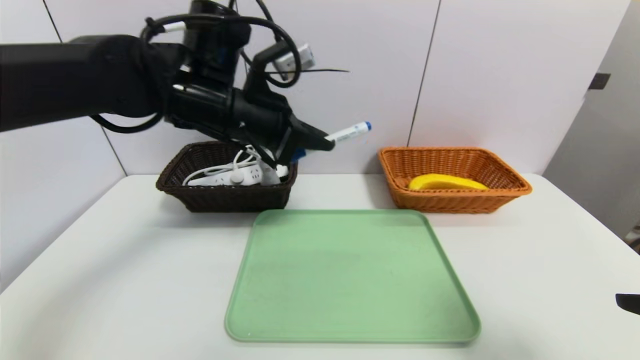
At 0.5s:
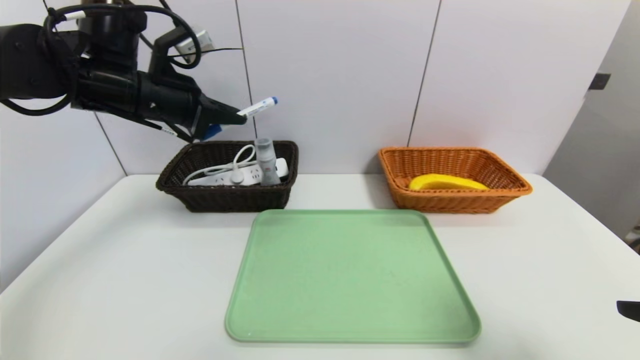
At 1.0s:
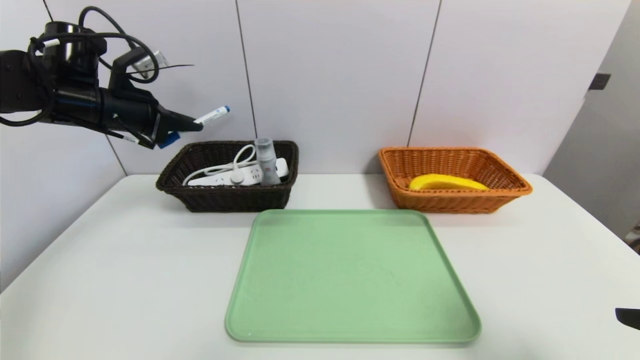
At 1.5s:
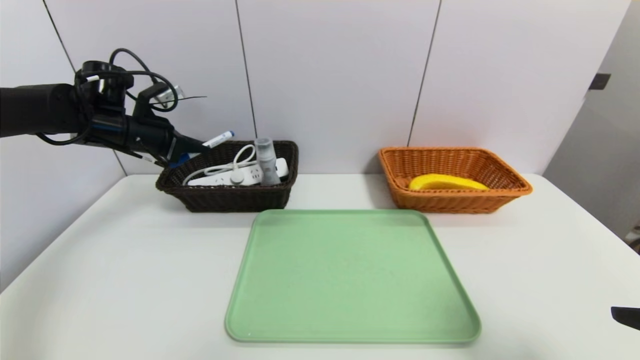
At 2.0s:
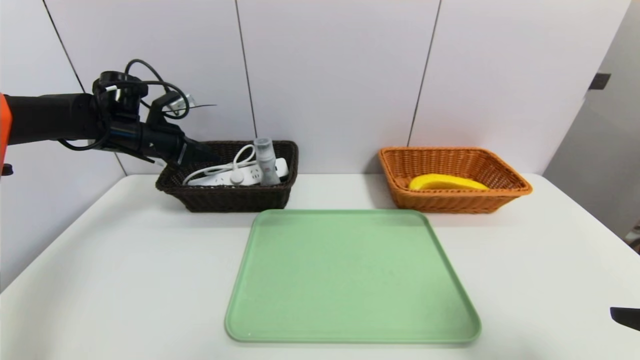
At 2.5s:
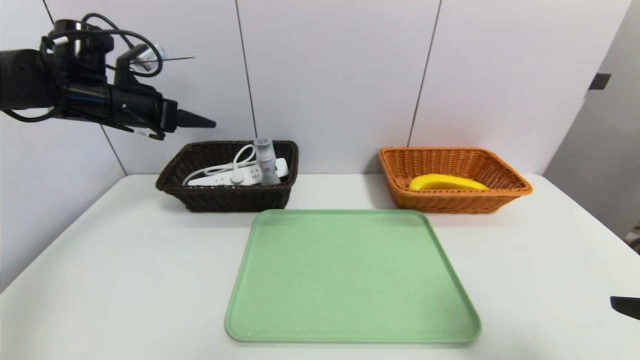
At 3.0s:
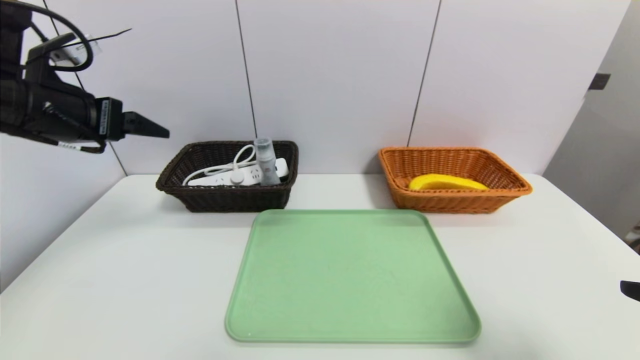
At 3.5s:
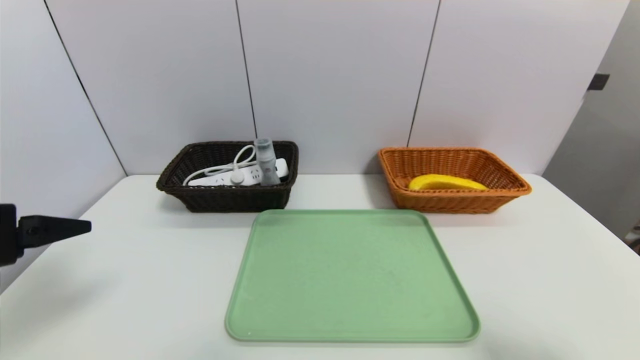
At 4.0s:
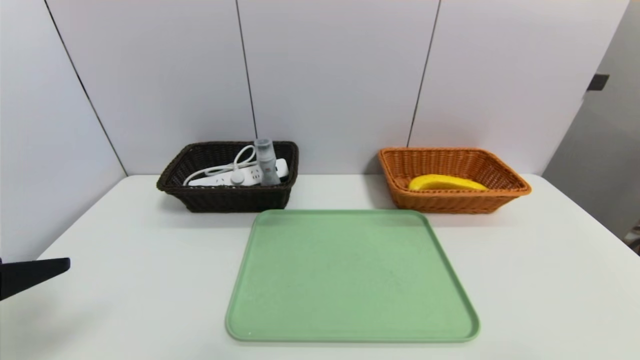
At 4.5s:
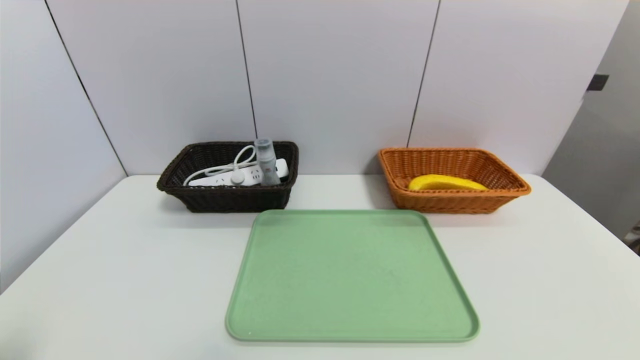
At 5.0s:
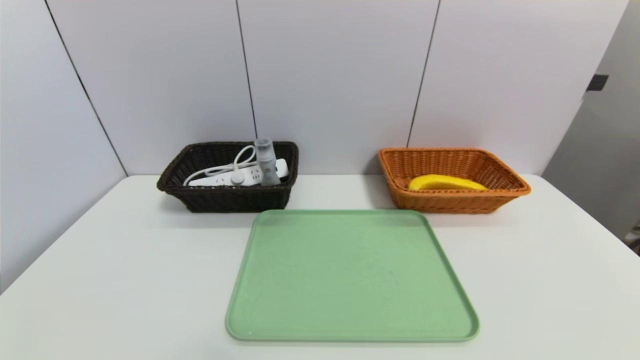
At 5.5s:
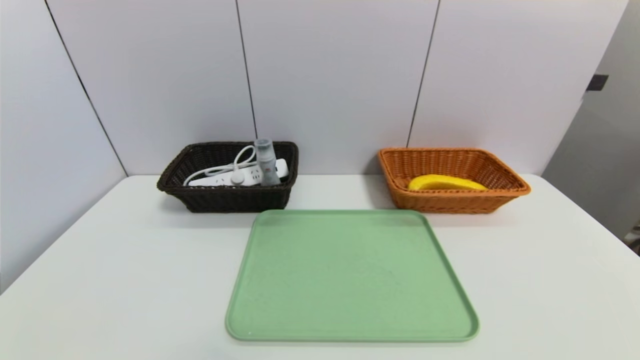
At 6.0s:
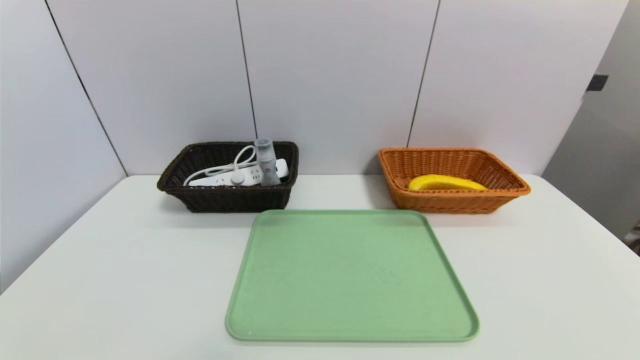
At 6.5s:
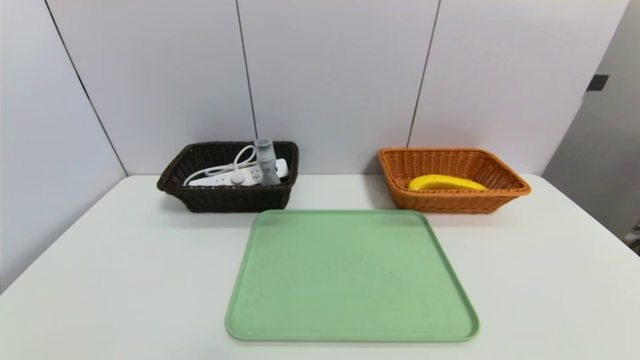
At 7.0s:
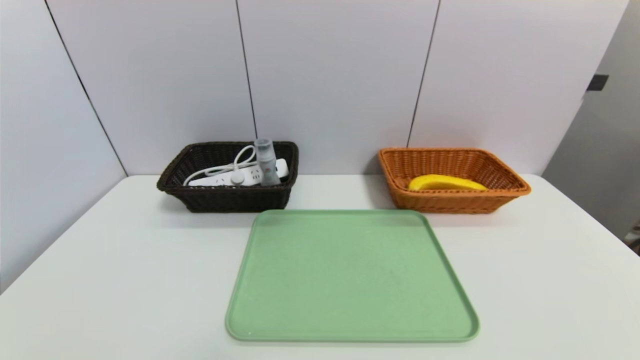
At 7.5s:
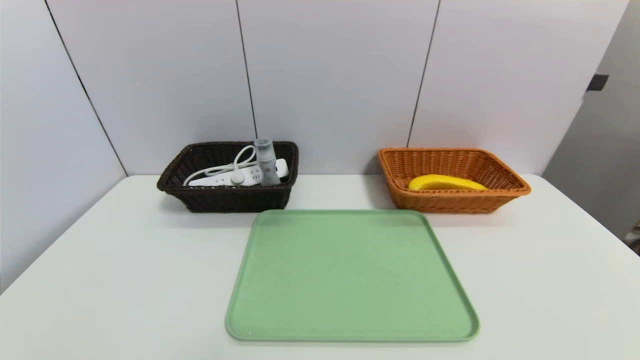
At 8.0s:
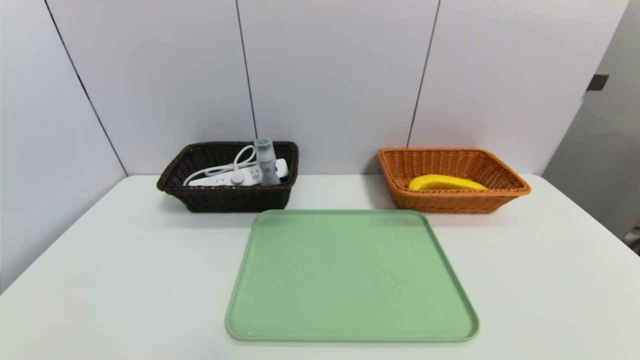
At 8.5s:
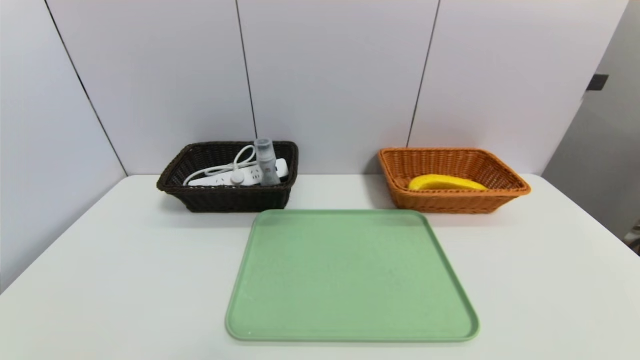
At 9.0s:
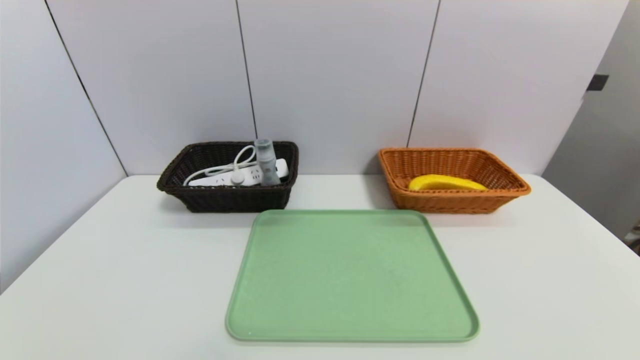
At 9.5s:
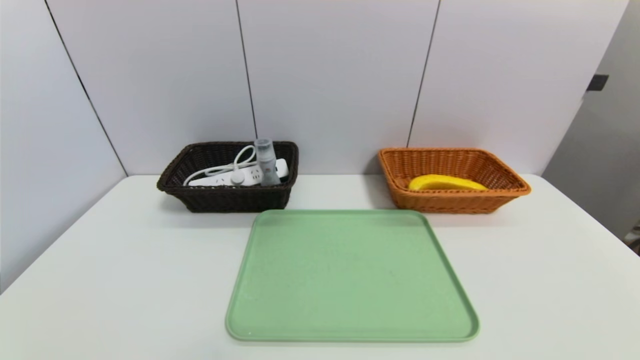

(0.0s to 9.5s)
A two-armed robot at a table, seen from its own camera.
Task of the whole recording: place the food in the right basket with the right gripper, and place the non food items in the left basket with the left gripper.
Step, 0.0s - 2.0s: Grasp the blue marker and put it in the left basket.
0.0s - 2.0s: The left gripper heads to the left, forward and downward, covering approximately 25 cm, and opens its fingers.
2.0s - 4.0s: The left gripper heads backward, covering about 35 cm, and opens; the right gripper goes about 10 cm backward.
4.0s - 5.5s: The left gripper shifts about 15 cm backward and downward.

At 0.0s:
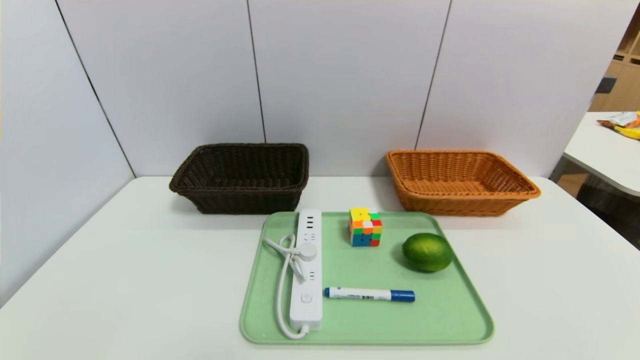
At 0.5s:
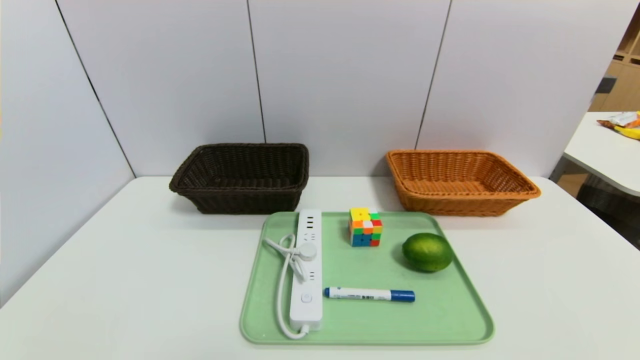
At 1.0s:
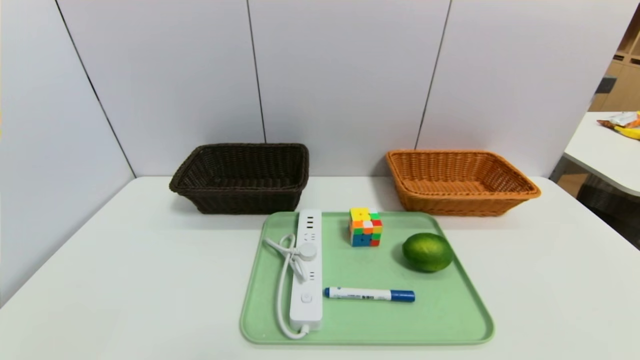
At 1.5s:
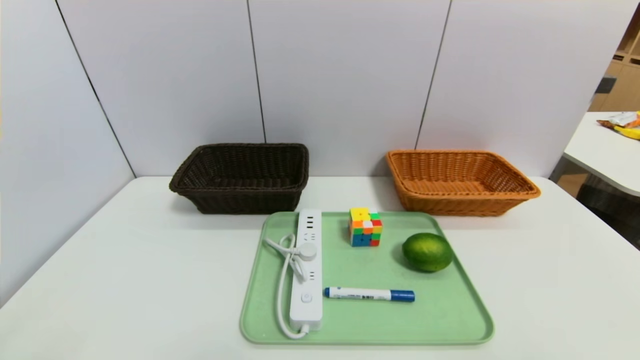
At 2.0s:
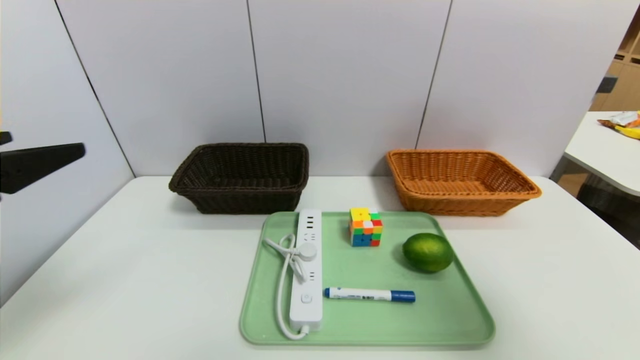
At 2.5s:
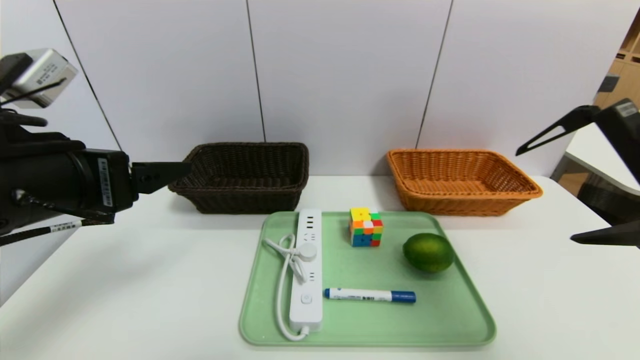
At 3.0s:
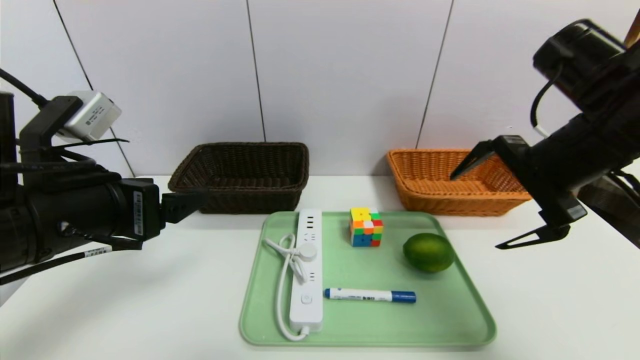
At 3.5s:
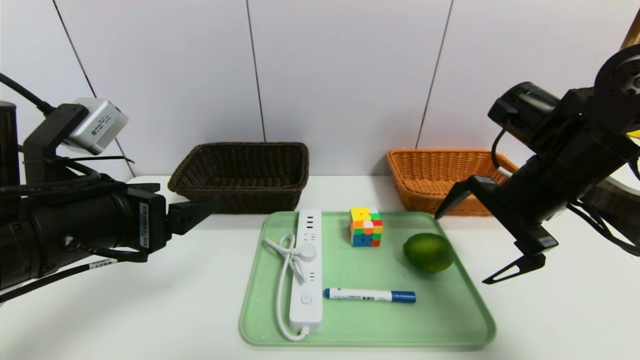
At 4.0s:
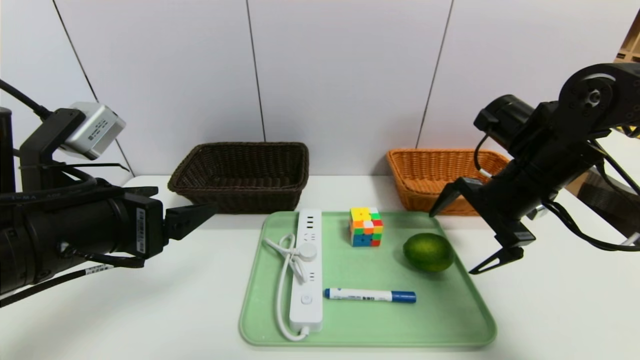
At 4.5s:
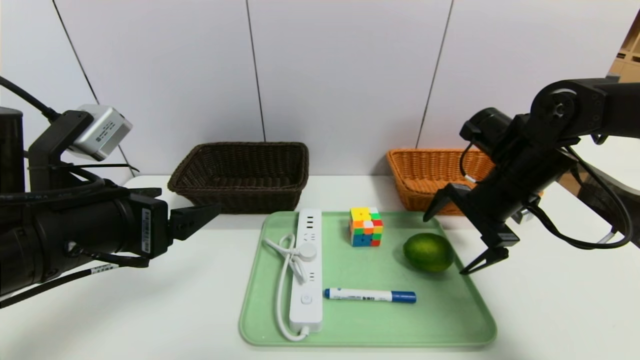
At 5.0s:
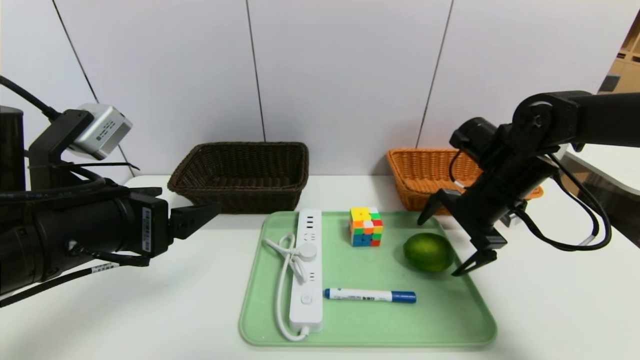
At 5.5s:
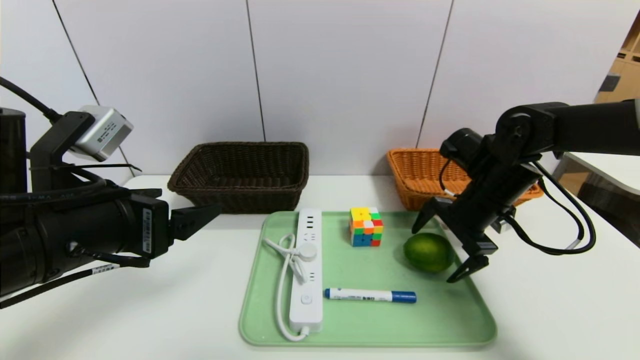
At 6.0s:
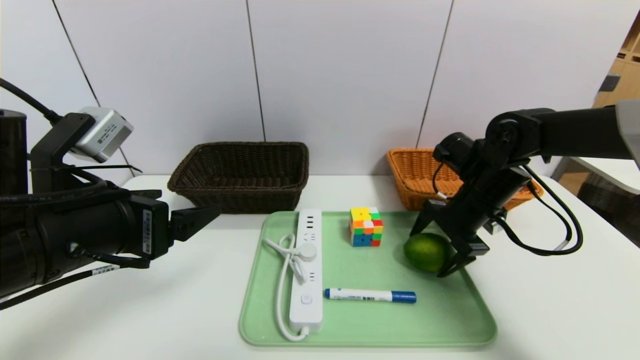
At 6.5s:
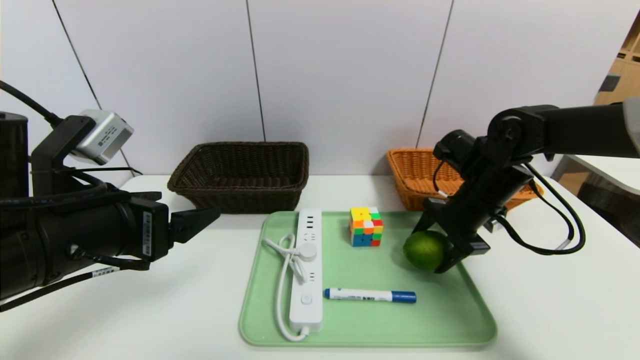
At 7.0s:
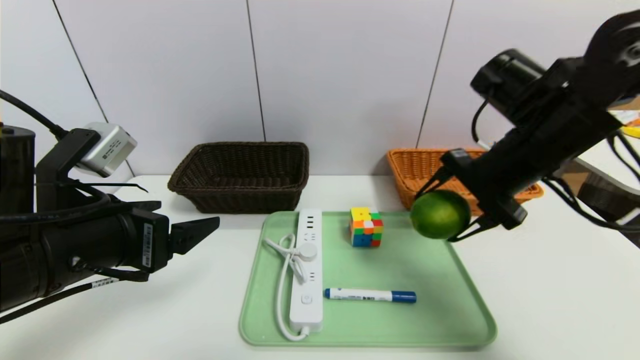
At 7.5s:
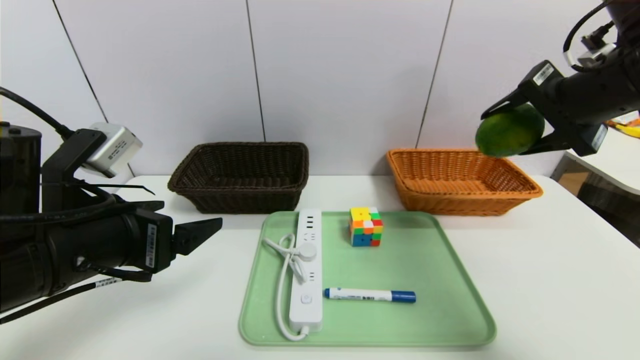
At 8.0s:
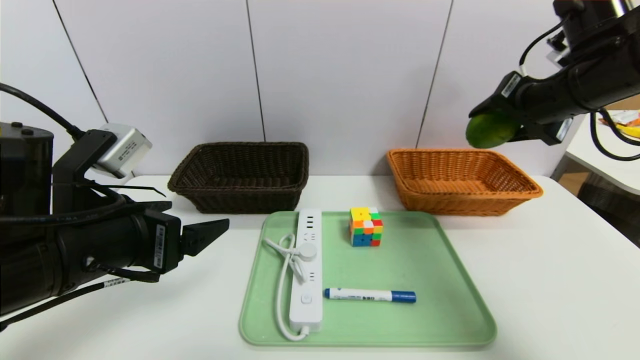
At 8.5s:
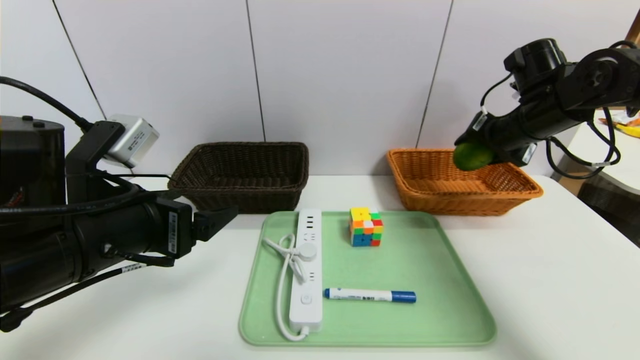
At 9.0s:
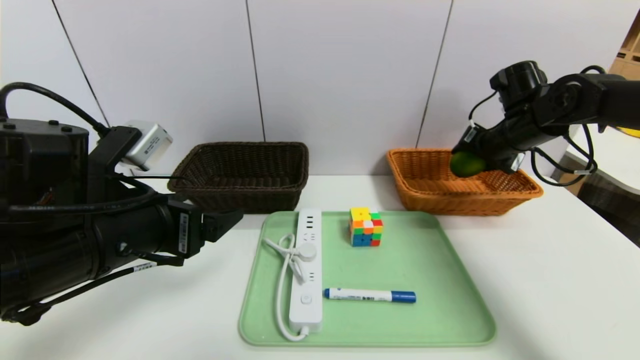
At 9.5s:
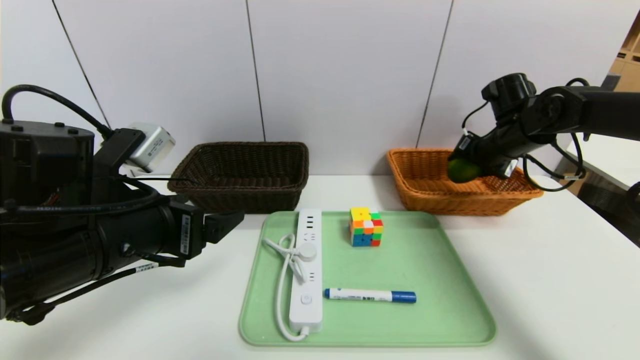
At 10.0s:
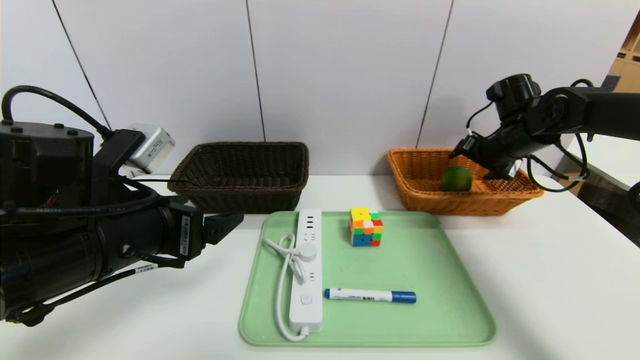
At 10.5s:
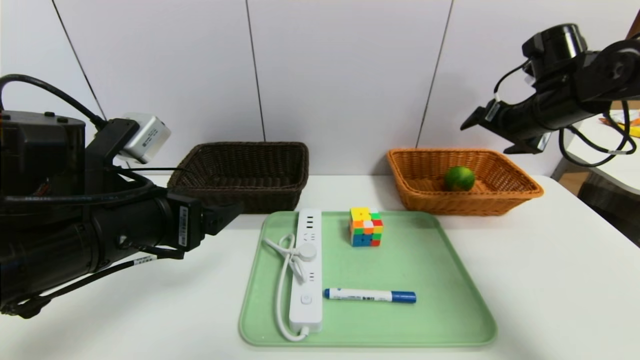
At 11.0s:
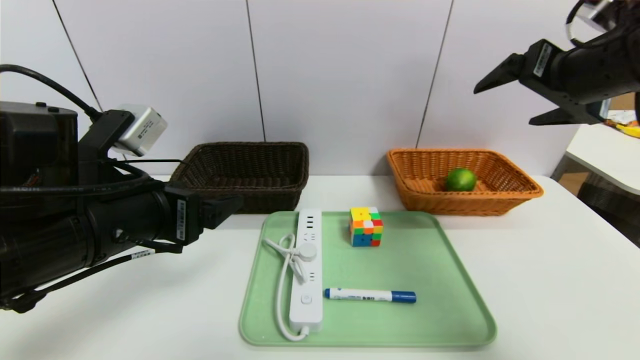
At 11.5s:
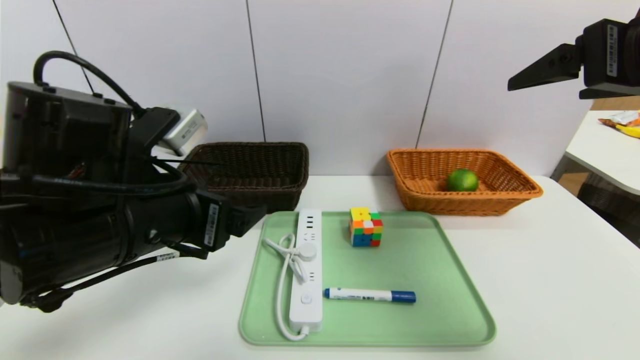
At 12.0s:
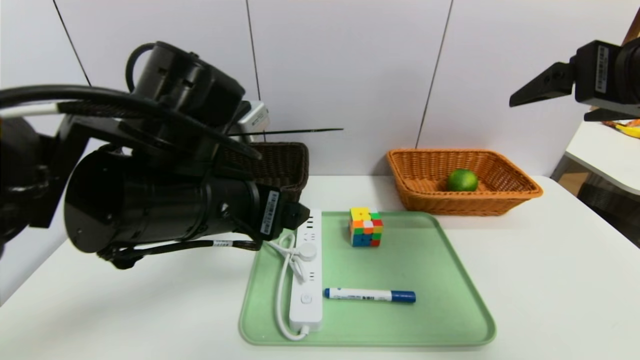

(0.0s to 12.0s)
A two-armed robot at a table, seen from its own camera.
Task of the whole recording: place the food in the right basket with the right gripper, and place the non food items in the left basket with the left gripper.
Step, 0.0s - 10.0s: Grasp the green lemon and put it in the right basket.
0.0s - 2.0s: The left gripper travels upward and forward by approximately 25 cm, while the right gripper heads upward, covering roughly 30 cm.
2.0s - 4.0s: The right gripper goes roughly 30 cm forward and downward, while the left gripper travels to the right, downward and forward by roughly 10 cm.
4.0s - 6.0s: The right gripper shifts some 5 cm downward.
6.0s - 8.0s: The right gripper shifts roughly 15 cm upward.
8.0s - 10.0s: The right gripper shifts roughly 15 cm downward and forward.
10.0s - 12.0s: The left gripper heads to the right, covering some 10 cm. Meanwhile the right gripper moves backward and upward, approximately 30 cm.
